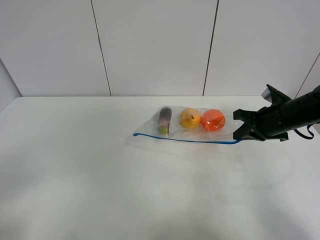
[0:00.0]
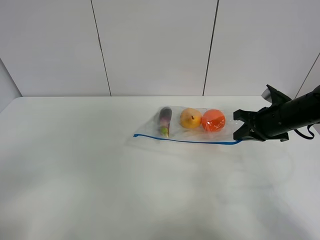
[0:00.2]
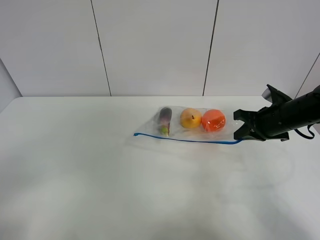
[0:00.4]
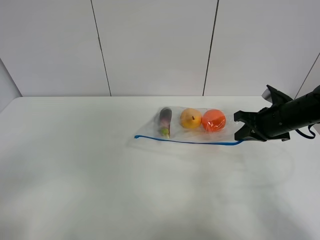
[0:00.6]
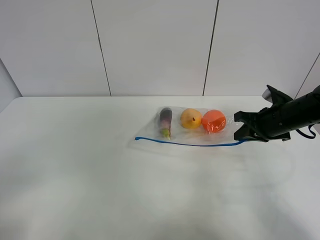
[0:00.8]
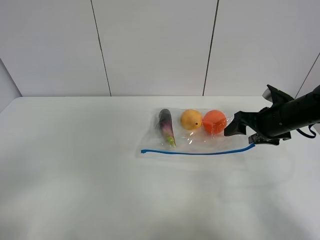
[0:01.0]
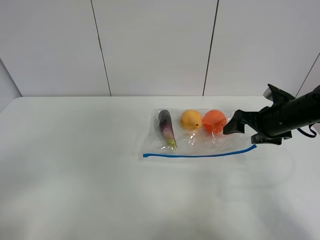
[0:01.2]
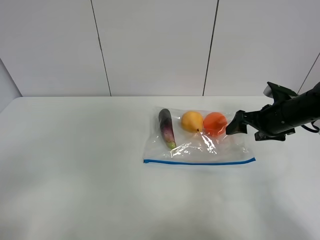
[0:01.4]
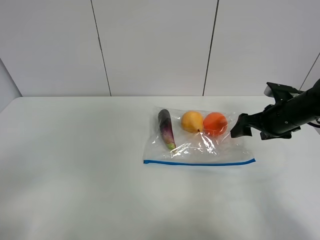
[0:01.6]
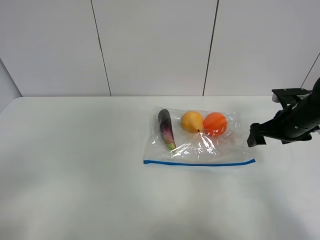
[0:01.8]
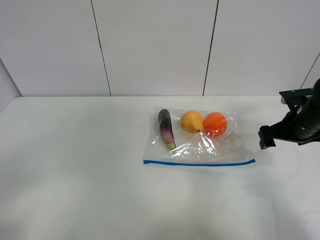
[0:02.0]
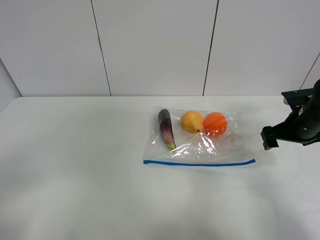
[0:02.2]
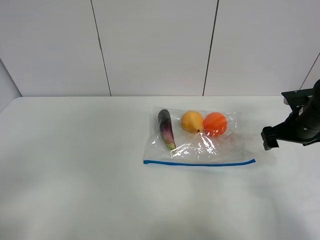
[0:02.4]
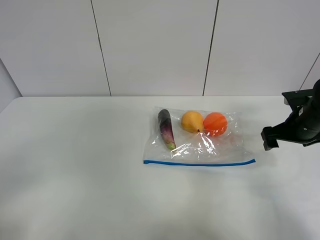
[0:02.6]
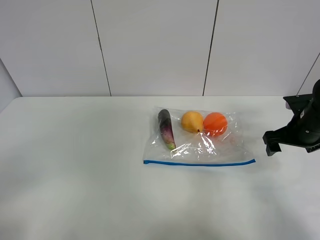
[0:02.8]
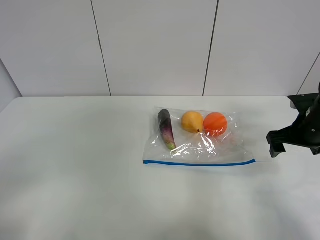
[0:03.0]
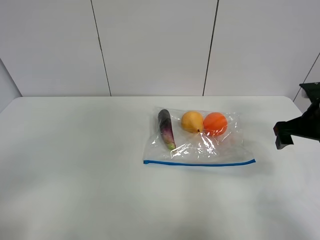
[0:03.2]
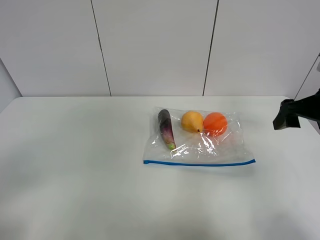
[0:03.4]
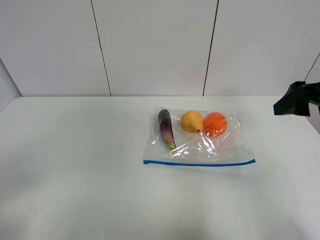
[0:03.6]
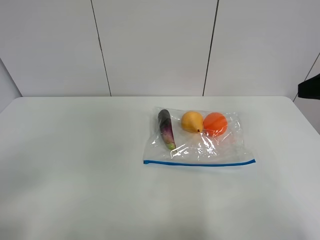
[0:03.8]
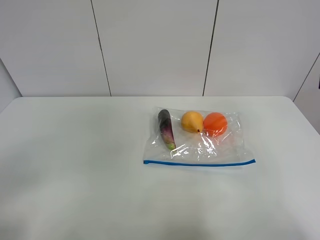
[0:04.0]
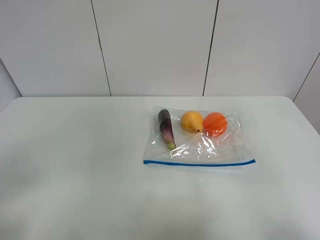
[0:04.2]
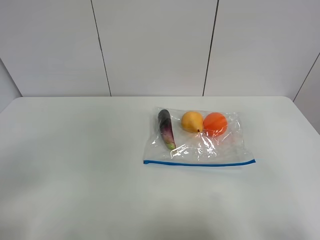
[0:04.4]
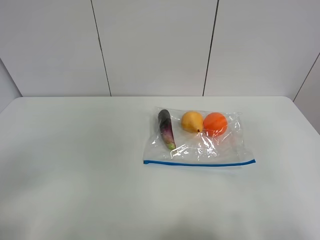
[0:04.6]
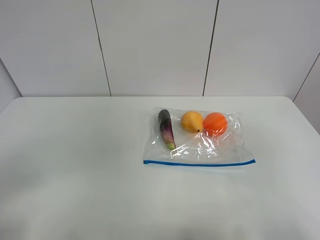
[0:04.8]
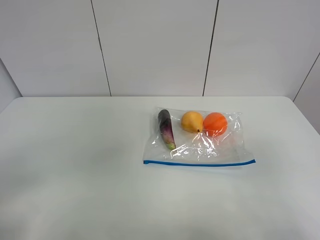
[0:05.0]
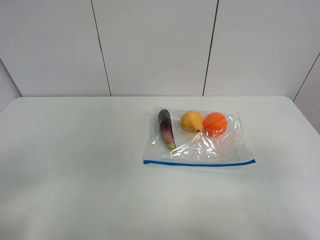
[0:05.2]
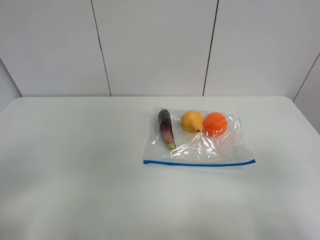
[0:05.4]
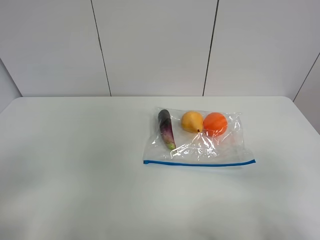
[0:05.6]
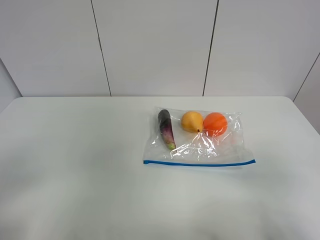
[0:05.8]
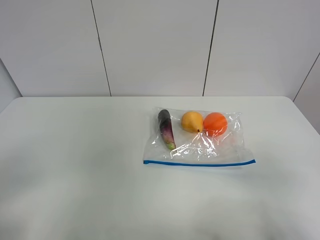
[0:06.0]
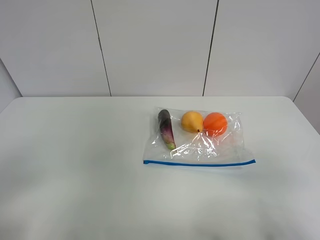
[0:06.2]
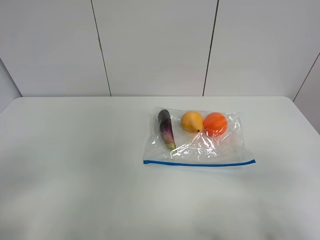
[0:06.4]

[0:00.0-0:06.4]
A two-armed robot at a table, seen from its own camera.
0:00.0 to 0:01.6: The right gripper opens up.
0:01.6 to 0:03.2: The right gripper shifts by roughly 5 cm.
0:03.2 to 0:04.8: The right gripper heads backward and upward, covering roughly 30 cm.

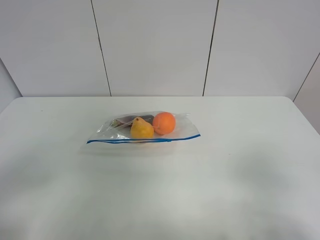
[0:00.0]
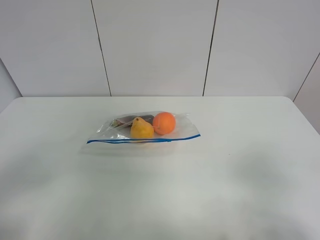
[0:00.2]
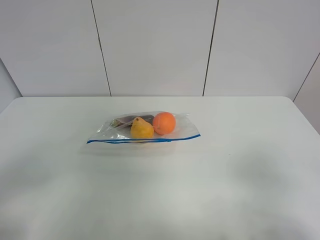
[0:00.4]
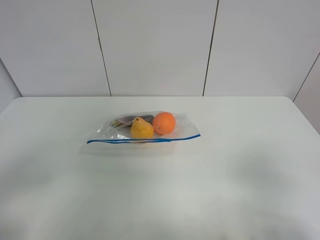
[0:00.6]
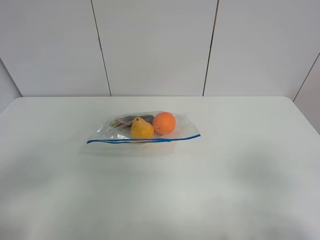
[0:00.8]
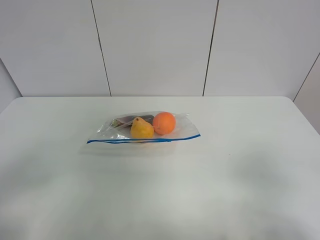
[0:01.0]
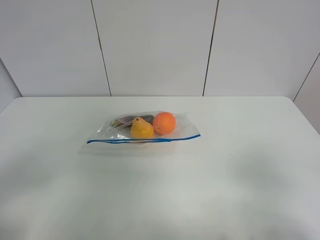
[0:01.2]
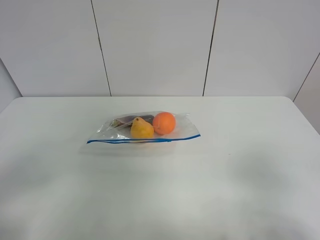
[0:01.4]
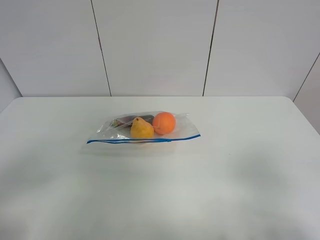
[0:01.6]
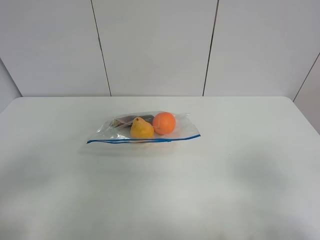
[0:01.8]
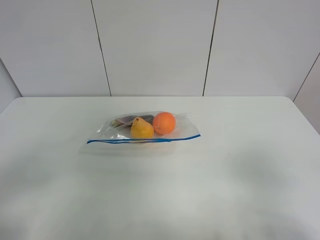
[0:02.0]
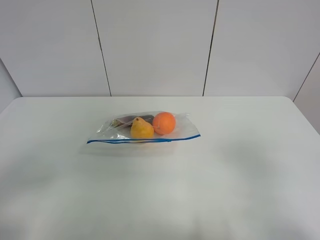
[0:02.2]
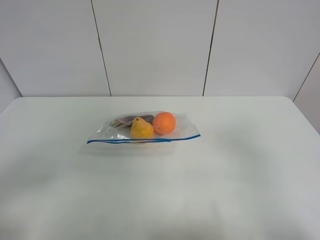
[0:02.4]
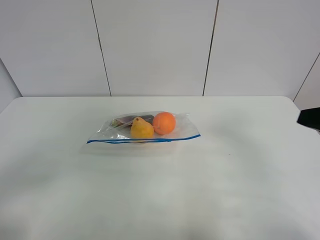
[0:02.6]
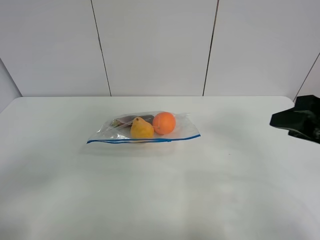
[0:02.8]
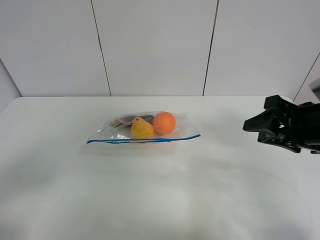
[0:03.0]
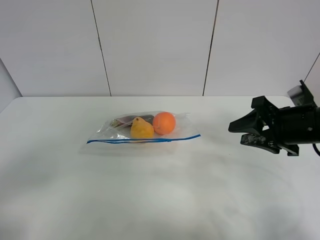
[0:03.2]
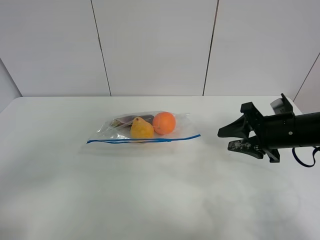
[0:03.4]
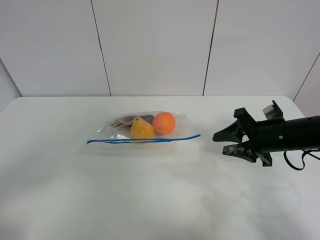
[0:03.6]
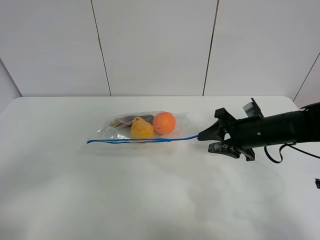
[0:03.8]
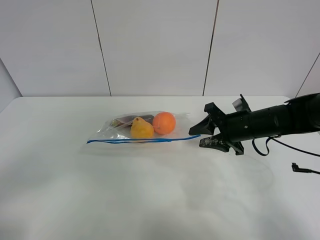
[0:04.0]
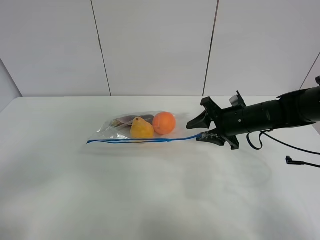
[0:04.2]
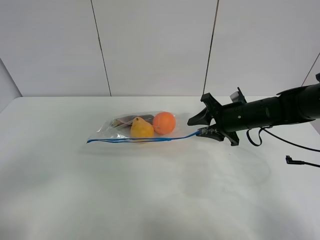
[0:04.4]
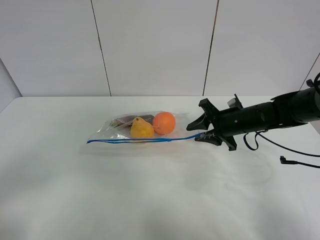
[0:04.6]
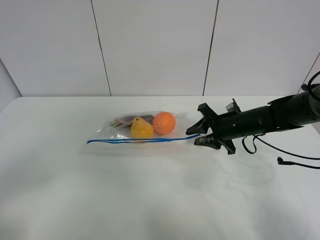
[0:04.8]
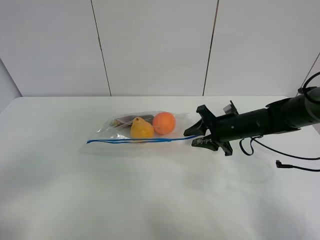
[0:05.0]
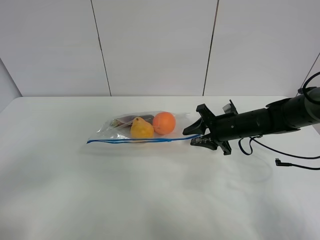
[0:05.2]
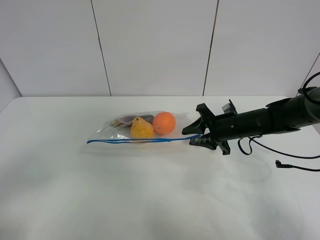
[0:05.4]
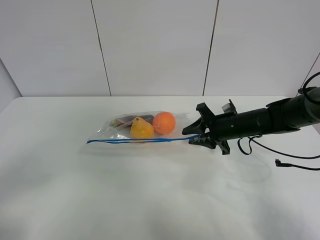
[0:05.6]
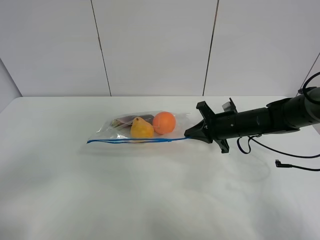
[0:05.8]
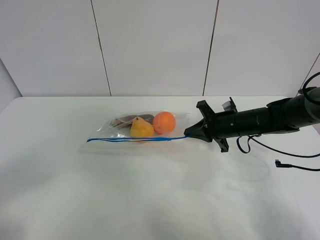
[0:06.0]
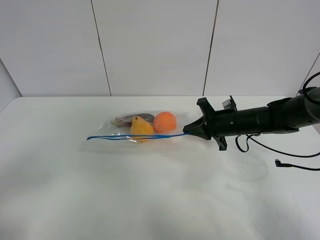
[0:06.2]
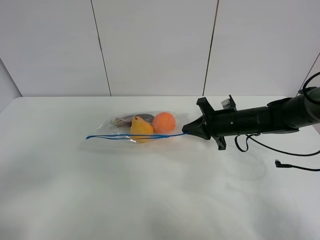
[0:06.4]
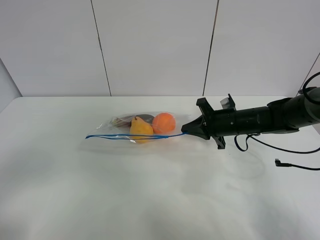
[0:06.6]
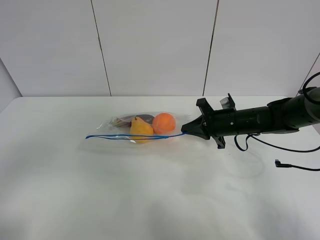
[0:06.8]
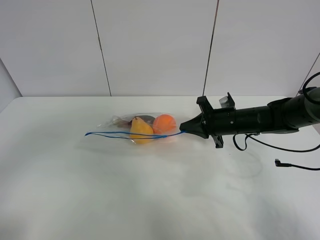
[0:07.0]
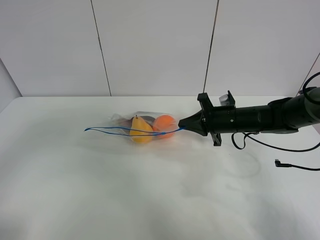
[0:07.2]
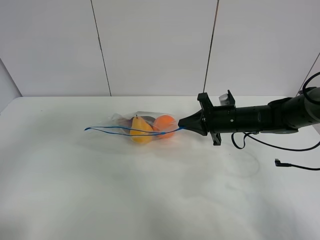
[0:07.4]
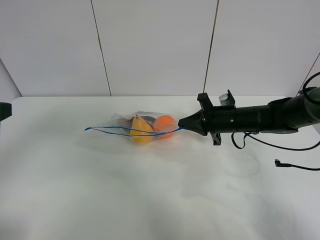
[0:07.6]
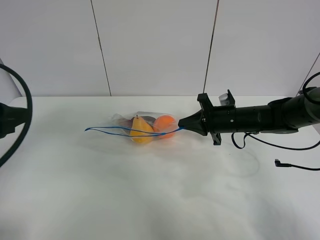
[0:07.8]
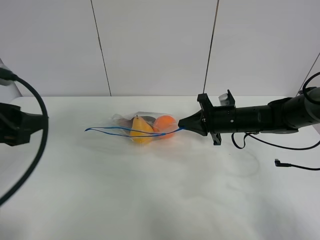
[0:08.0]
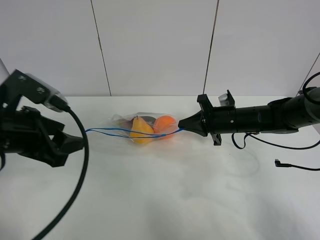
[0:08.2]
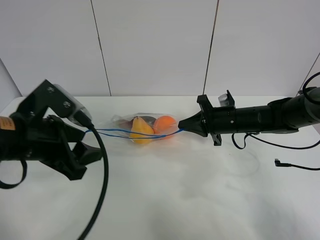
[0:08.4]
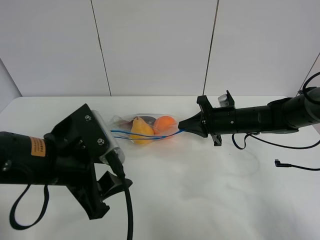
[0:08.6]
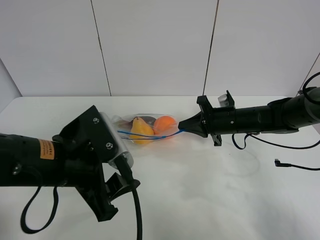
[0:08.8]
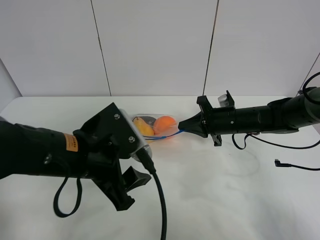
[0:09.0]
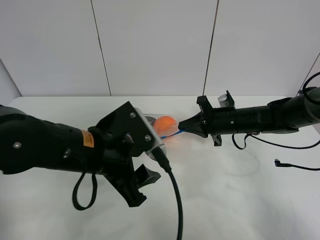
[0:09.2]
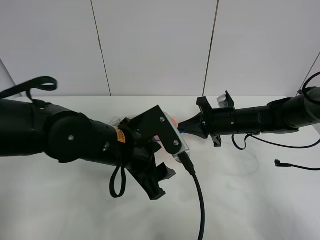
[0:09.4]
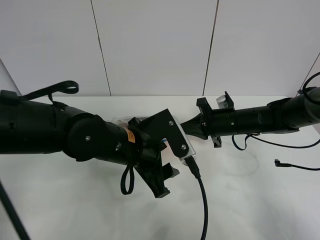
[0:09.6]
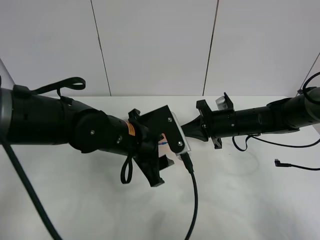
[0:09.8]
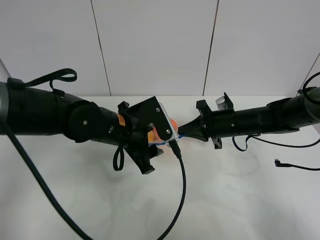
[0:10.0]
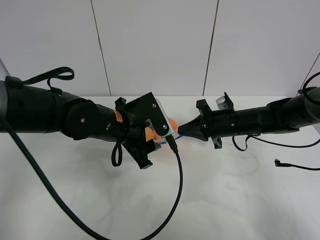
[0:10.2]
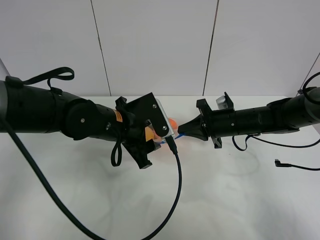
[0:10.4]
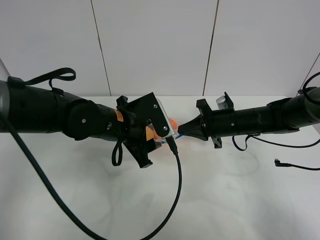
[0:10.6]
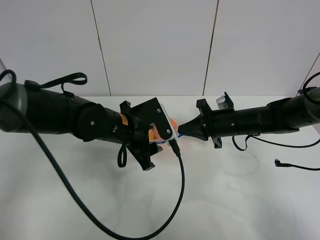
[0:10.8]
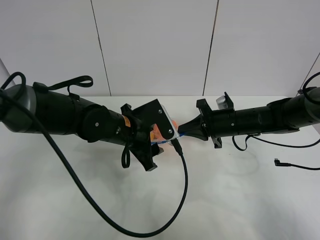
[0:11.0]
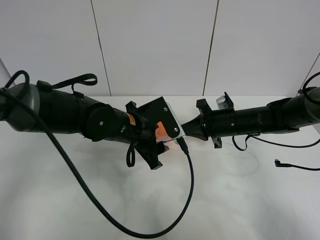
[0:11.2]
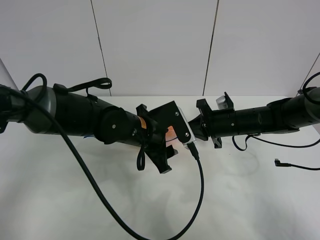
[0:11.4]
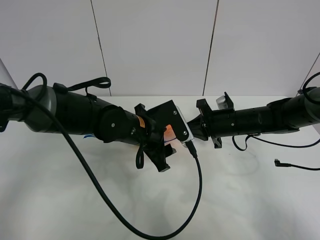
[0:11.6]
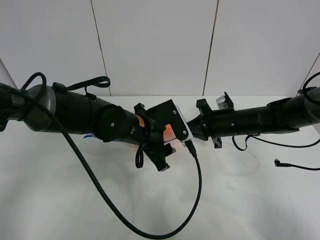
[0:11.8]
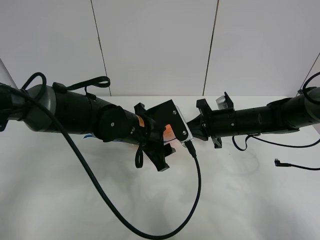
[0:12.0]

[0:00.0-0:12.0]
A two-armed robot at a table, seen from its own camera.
Step, 0:00.0 to 0:05.8: Grasp the fruit bag with right gripper.
0:00.0 to 0:01.6: Both grippers stay about where they are.
0:01.6 to 0:03.0: The right gripper shifts approximately 20 cm forward.
0:03.0 to 0:04.4: The right gripper moves forward, downward and to the left, some 15 cm.
0:04.4 to 0:06.0: The right gripper closes.
0:06.0 to 0:07.6: The left gripper moves forward, roughly 15 cm.
0:07.6 to 0:09.0: The left gripper travels to the right and downward by about 20 cm.
0:09.0 to 0:10.4: The left gripper travels forward by roughly 10 cm.
0:10.4 to 0:12.0: The grippers stay close to where they were, moving slightly.

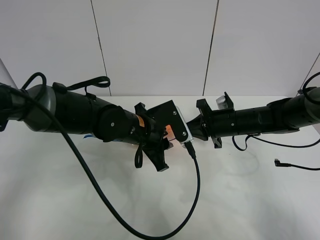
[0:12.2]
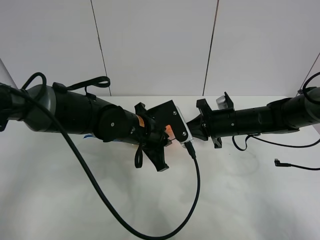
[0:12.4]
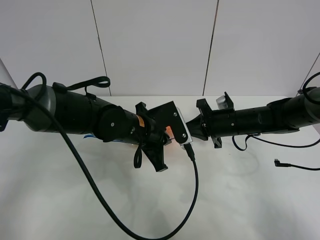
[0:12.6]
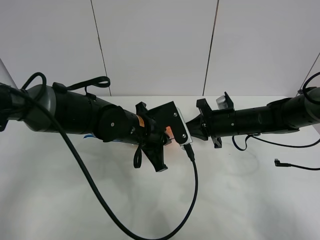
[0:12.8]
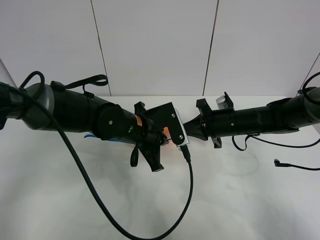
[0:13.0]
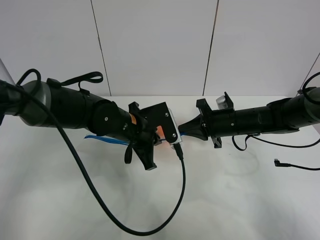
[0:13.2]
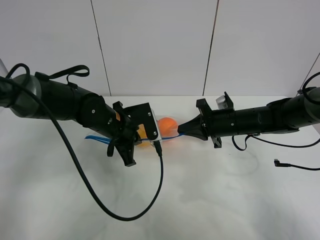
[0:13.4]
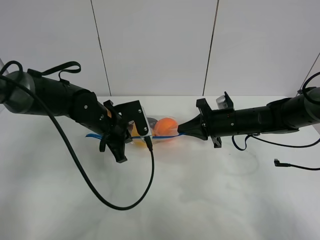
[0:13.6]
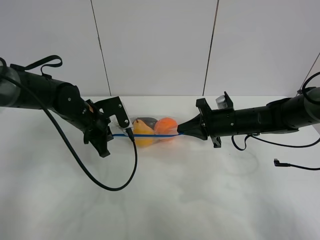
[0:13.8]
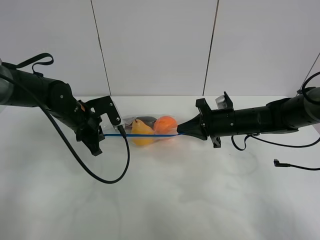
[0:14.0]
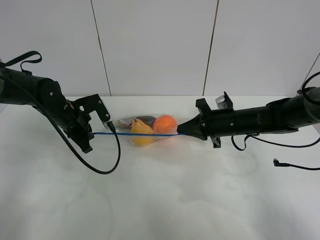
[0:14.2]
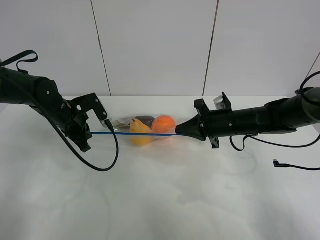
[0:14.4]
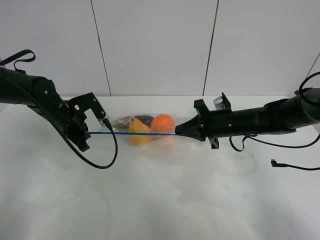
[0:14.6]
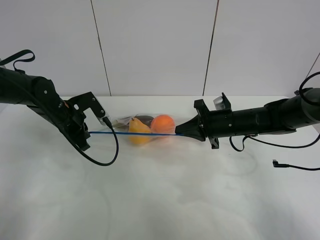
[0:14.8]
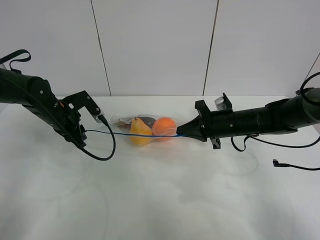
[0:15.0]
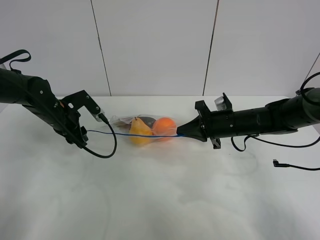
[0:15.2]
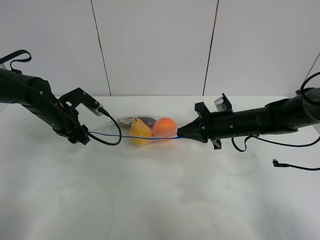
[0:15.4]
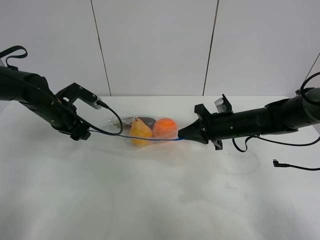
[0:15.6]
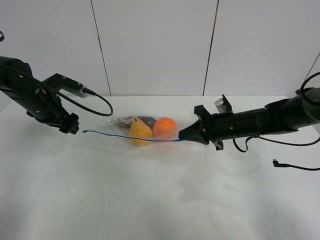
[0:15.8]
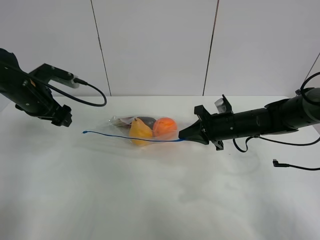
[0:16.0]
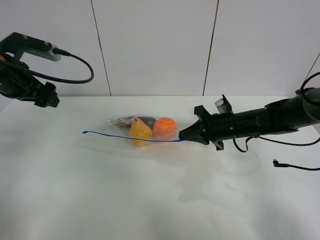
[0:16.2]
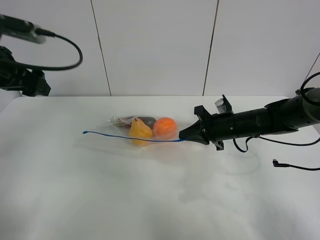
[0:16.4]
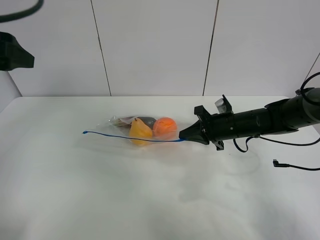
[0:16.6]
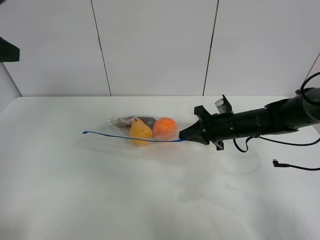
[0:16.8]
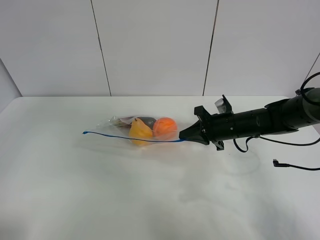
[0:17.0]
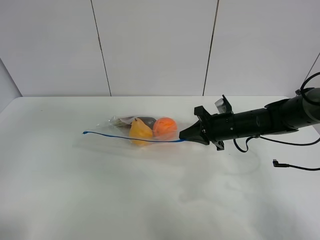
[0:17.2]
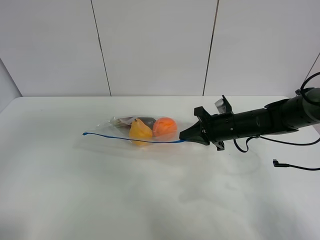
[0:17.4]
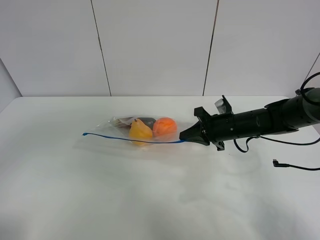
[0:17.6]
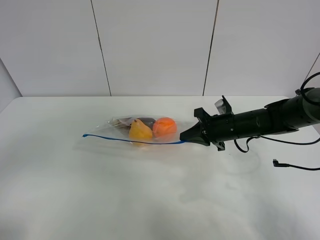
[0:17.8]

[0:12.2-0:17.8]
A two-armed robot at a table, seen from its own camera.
Step, 0:12.2 to 0:15.4: Pull the fruit bag with left gripper.
0:12.2 to 0:13.6: The left gripper heads to the left, covering some 10 cm.
0:13.6 to 0:15.0: The left gripper is displaced to the left by roughly 10 cm, and opens up.
0:15.0 to 0:16.4: The left gripper shifts about 20 cm upward and backward, and opens its fingers.
0:16.4 to 0:17.8: The left gripper moves backward, approximately 30 cm.
